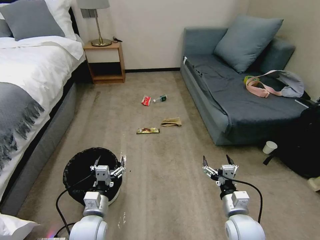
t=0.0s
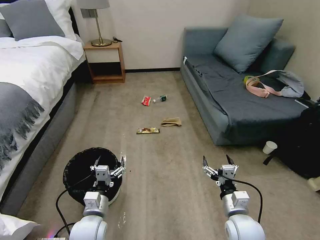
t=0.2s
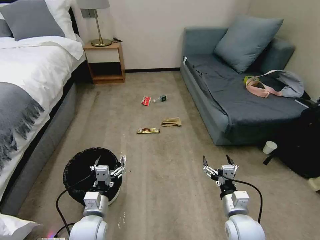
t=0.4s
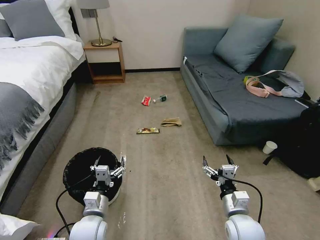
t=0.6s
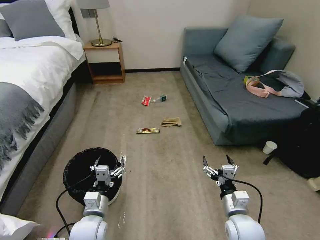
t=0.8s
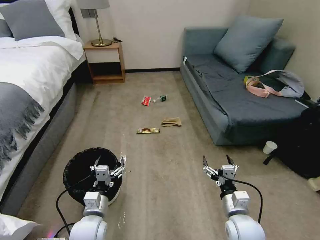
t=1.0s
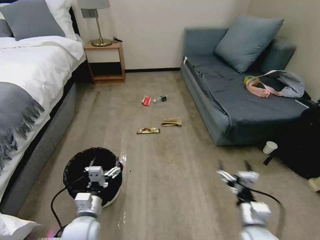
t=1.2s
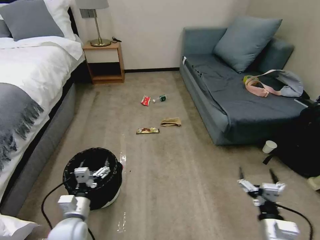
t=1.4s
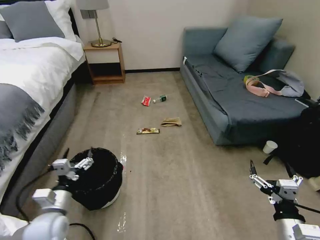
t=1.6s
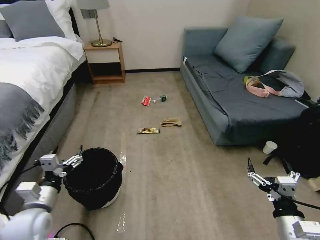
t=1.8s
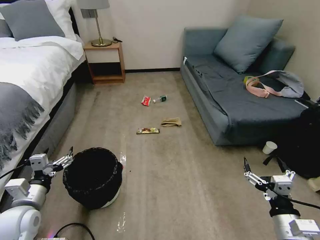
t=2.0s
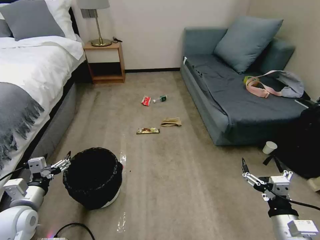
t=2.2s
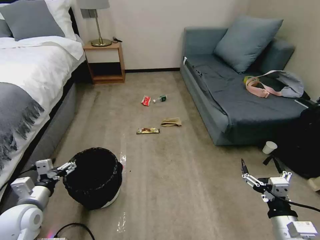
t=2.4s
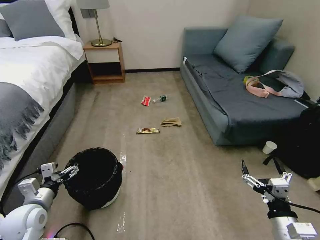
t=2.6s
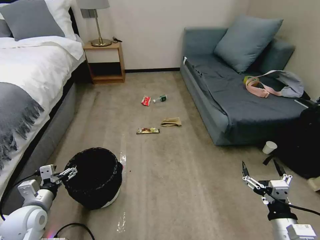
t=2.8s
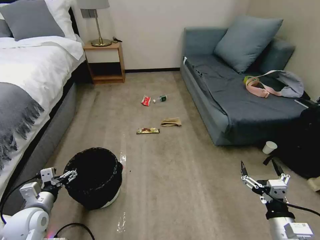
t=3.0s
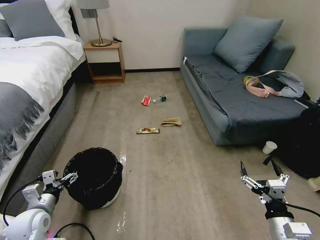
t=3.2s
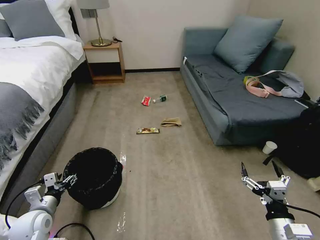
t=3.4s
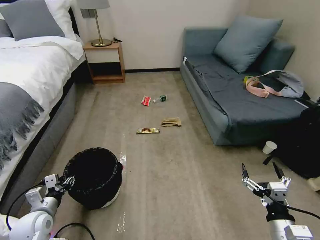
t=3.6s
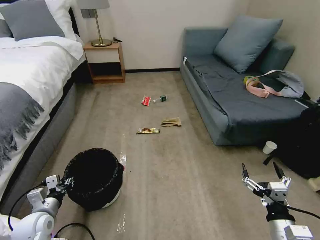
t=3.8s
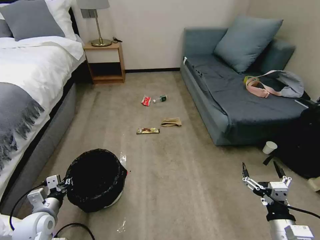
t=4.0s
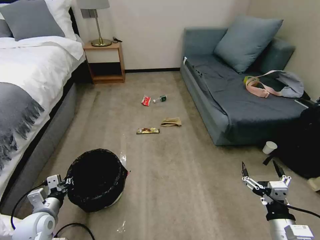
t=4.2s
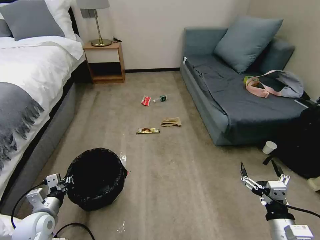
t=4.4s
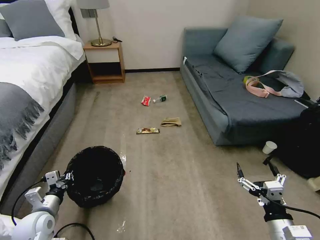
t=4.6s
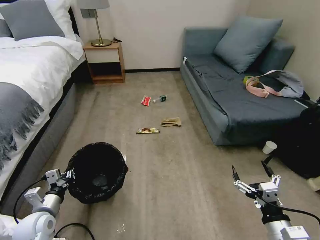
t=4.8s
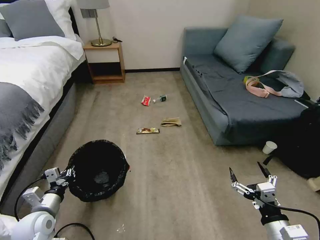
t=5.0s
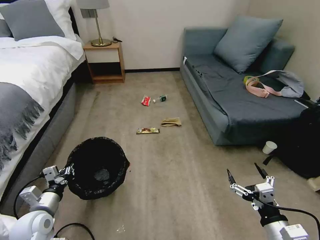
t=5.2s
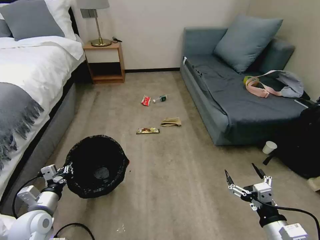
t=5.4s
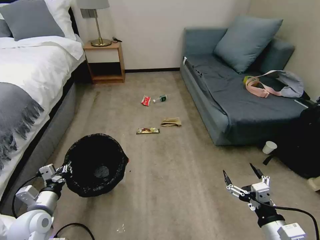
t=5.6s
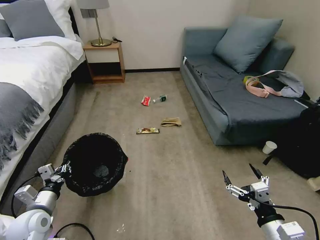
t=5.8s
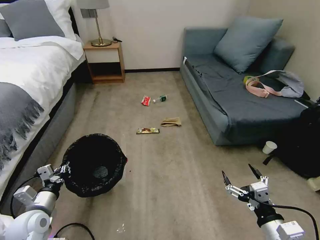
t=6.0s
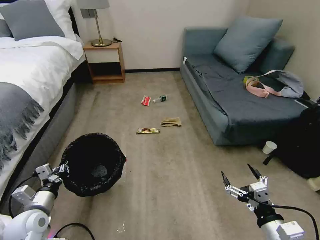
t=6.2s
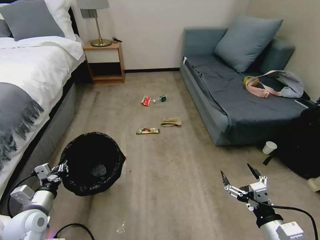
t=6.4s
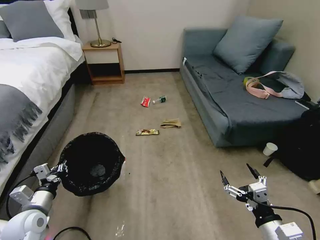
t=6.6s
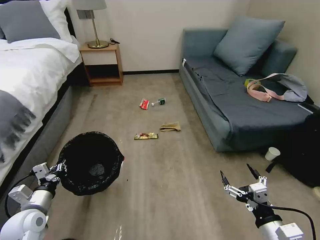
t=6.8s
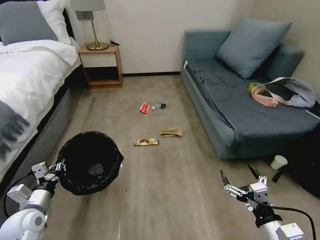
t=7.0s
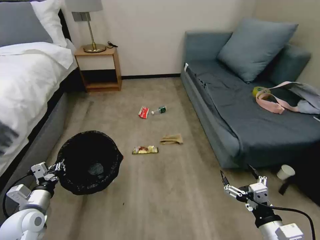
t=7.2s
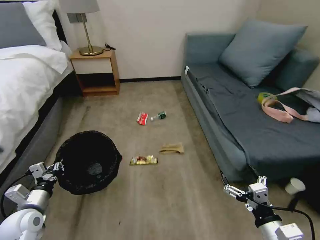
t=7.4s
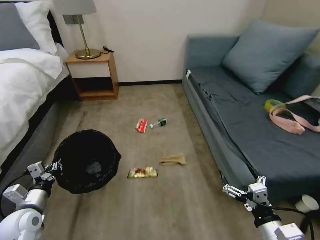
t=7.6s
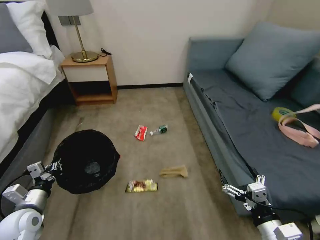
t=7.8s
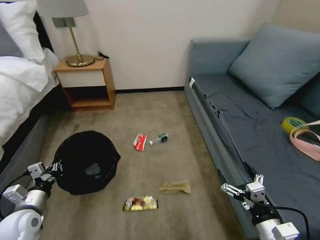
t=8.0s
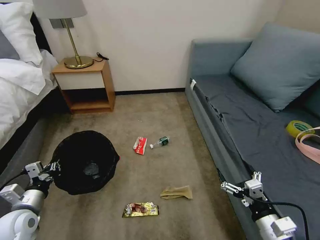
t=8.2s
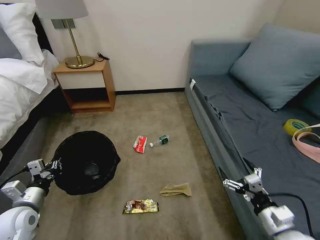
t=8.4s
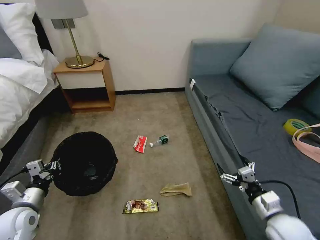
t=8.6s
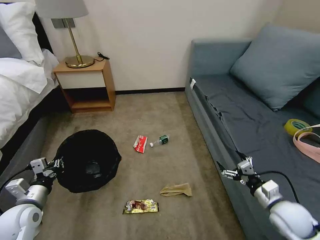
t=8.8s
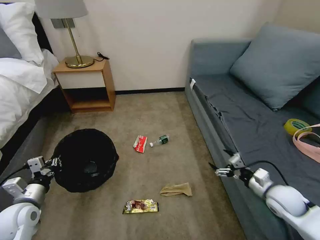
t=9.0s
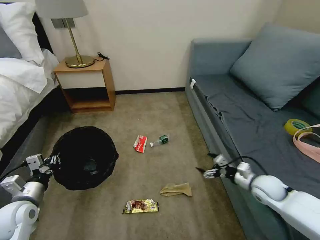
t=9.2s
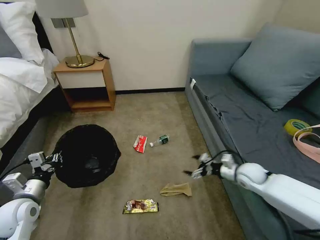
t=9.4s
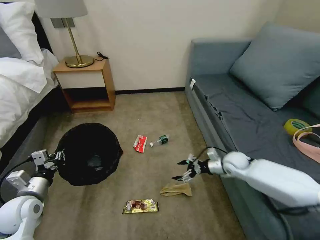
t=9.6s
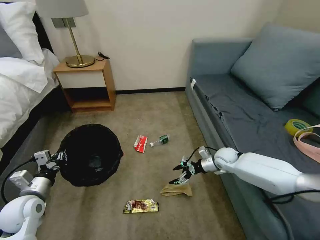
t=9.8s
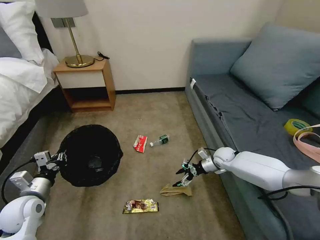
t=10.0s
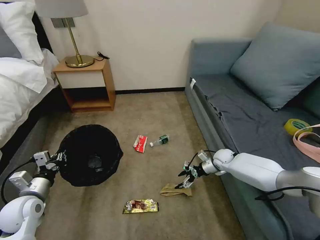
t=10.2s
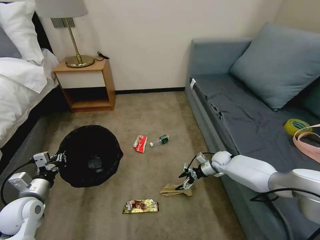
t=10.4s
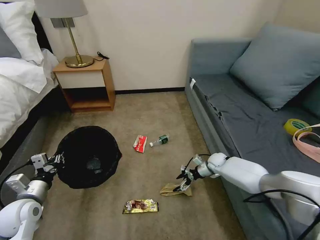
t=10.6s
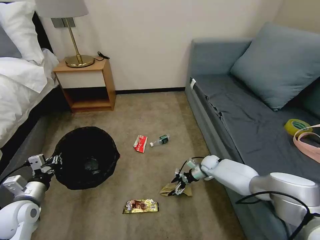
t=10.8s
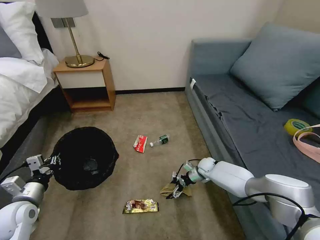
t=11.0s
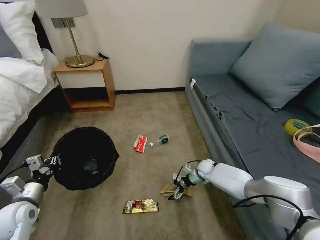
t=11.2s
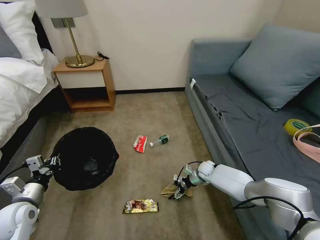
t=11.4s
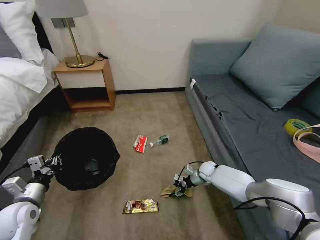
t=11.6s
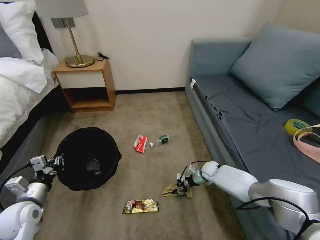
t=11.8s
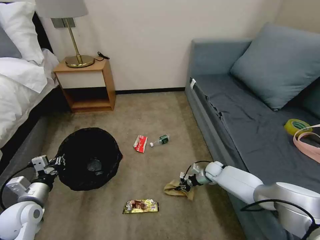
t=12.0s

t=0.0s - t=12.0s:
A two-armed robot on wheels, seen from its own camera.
Task of the whole recording: Pick up the trash bin, then pick up the garbage on the floor and place it into the trash bin.
t=1.6s - t=3.0s: The left gripper heads to the left, covering some 5 cm.
t=3.0s - t=4.4s: The left gripper closes its fingers.
t=4.4s - t=6.0s: There are only small adjustments of the grippers.
t=7.6s - t=9.0s: The right gripper is displaced forward and to the right by about 20 cm.
t=9.0s - t=10.4s: The right gripper travels forward, downward and to the left by some 25 cm.
t=10.4s - t=12.0s: The right gripper is displaced downward by approximately 5 cm, and closes.

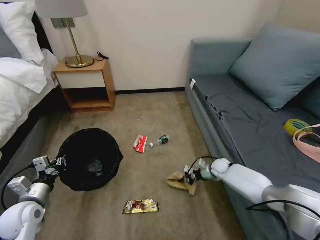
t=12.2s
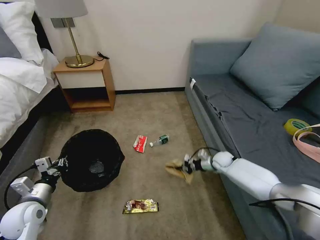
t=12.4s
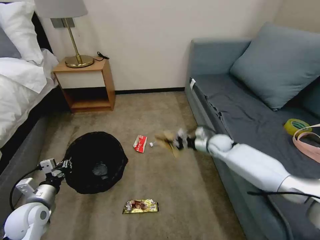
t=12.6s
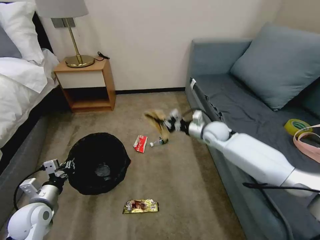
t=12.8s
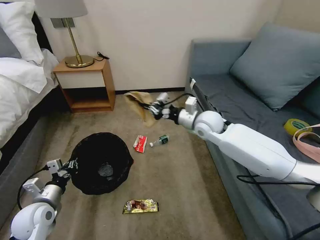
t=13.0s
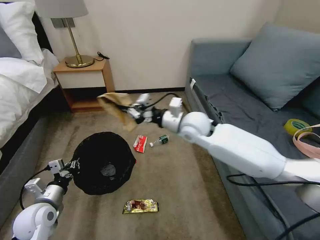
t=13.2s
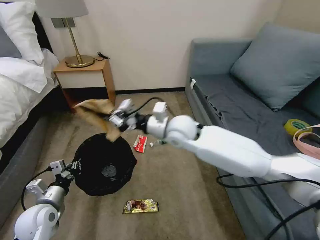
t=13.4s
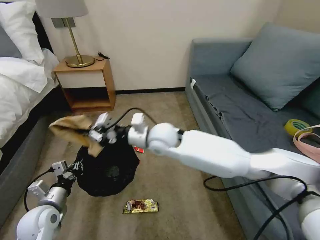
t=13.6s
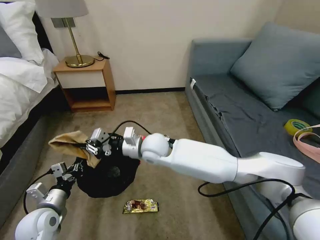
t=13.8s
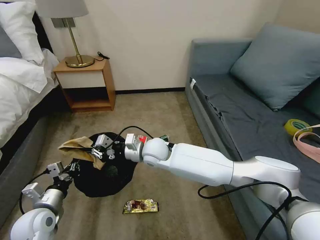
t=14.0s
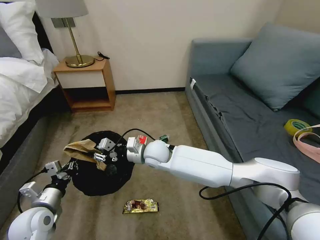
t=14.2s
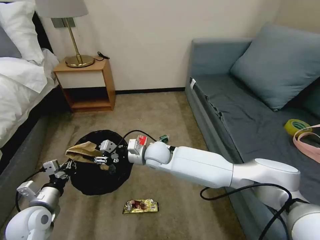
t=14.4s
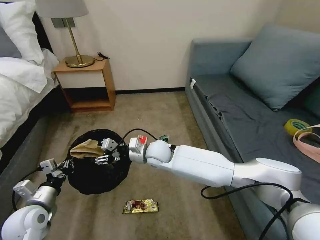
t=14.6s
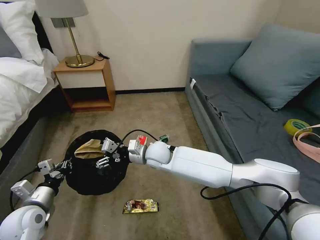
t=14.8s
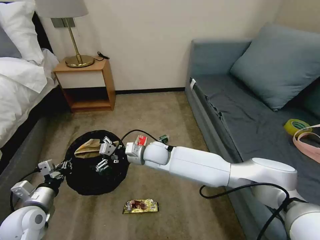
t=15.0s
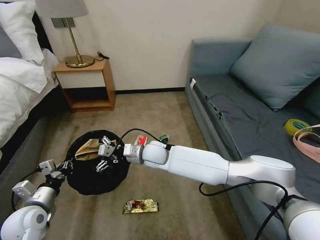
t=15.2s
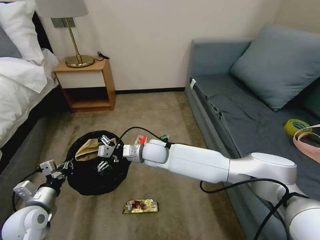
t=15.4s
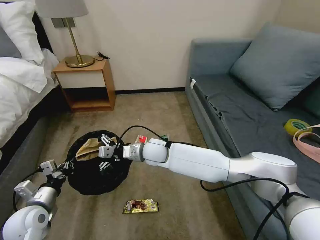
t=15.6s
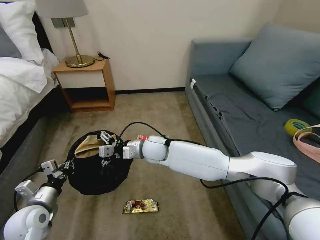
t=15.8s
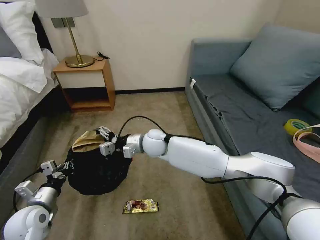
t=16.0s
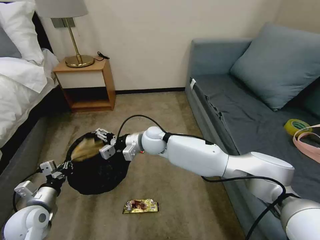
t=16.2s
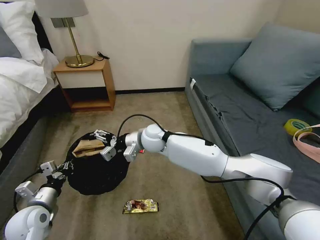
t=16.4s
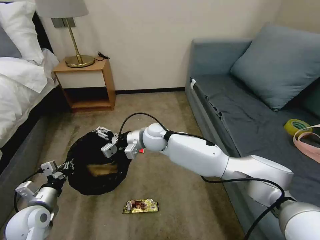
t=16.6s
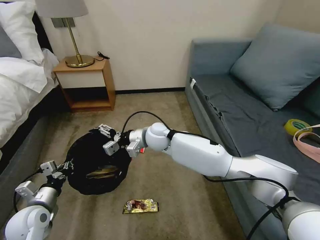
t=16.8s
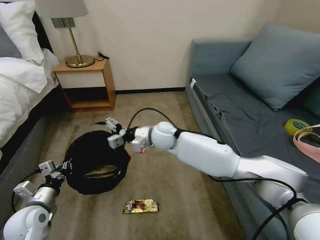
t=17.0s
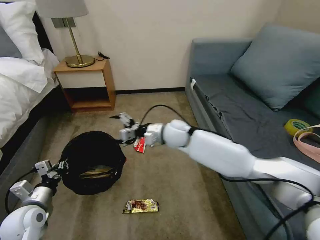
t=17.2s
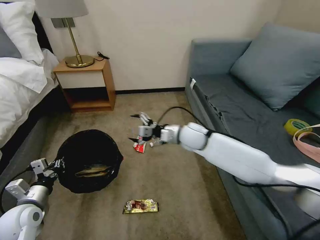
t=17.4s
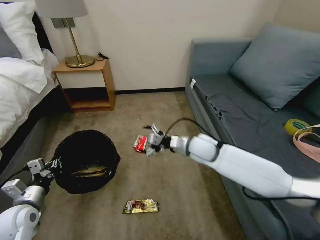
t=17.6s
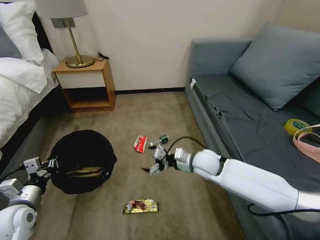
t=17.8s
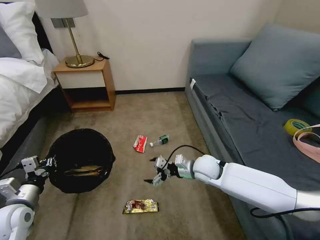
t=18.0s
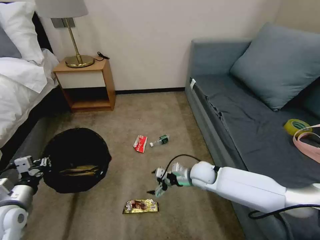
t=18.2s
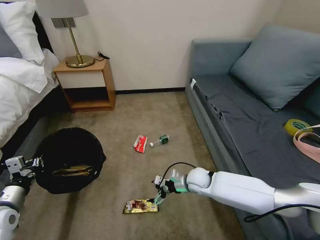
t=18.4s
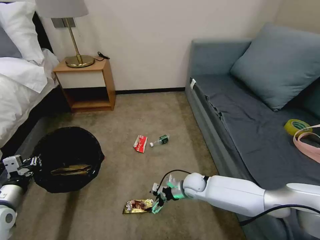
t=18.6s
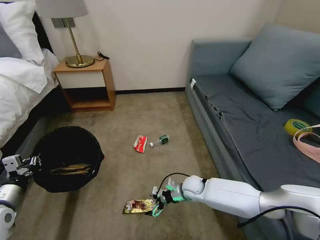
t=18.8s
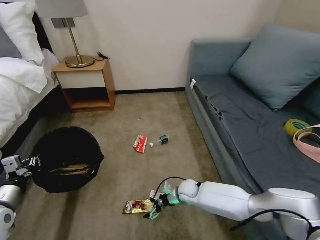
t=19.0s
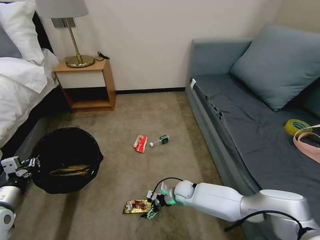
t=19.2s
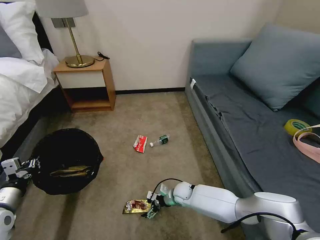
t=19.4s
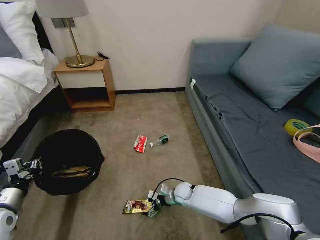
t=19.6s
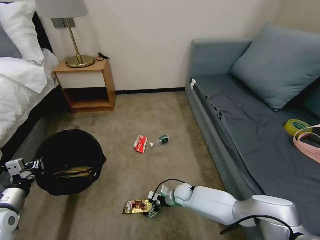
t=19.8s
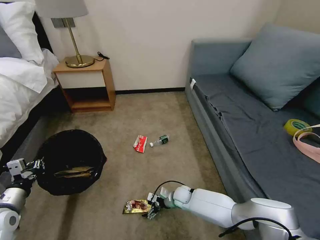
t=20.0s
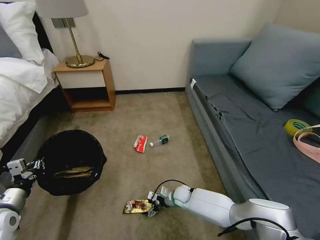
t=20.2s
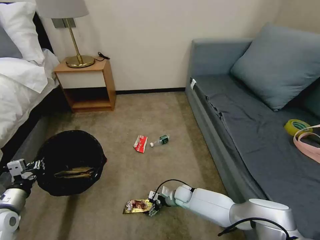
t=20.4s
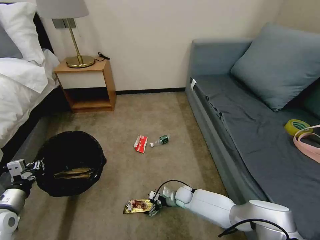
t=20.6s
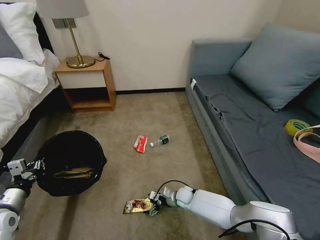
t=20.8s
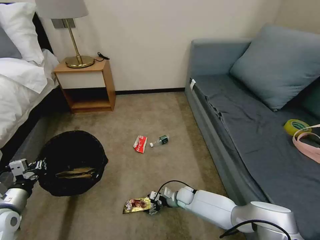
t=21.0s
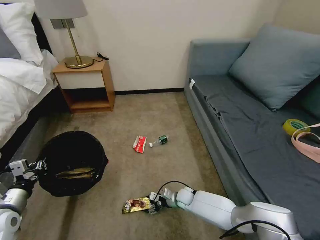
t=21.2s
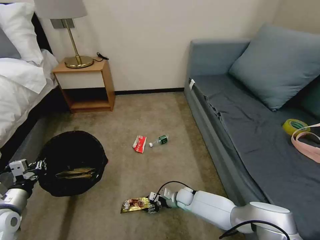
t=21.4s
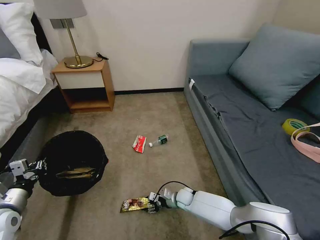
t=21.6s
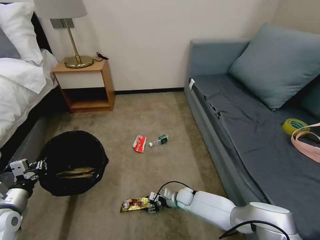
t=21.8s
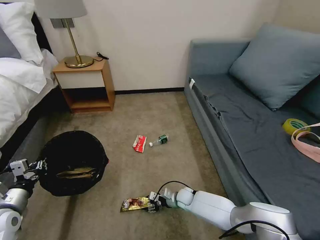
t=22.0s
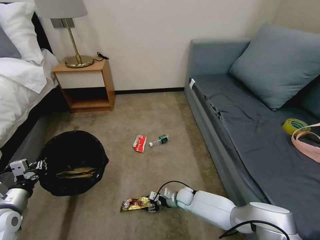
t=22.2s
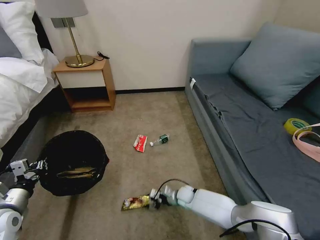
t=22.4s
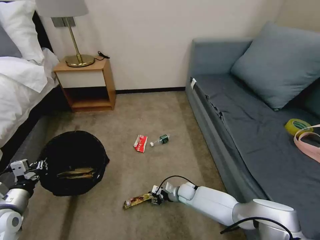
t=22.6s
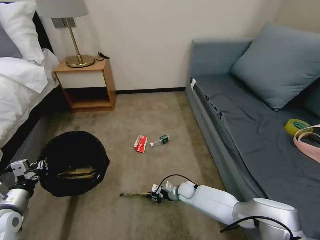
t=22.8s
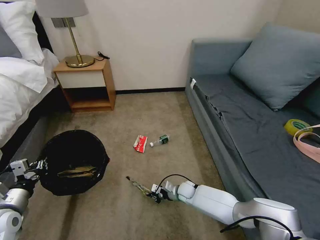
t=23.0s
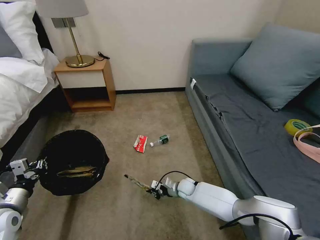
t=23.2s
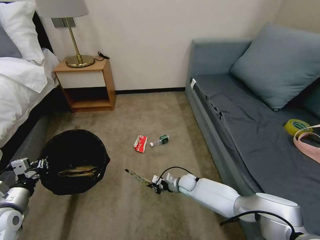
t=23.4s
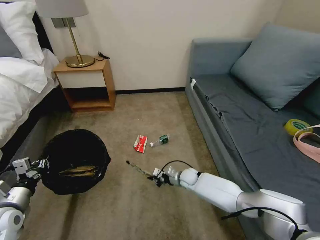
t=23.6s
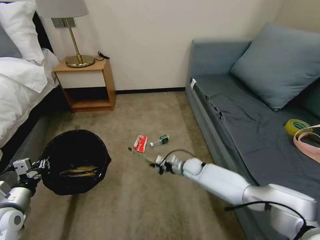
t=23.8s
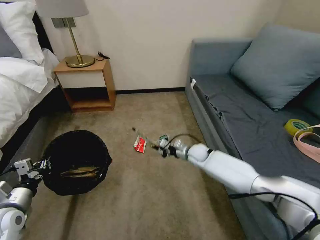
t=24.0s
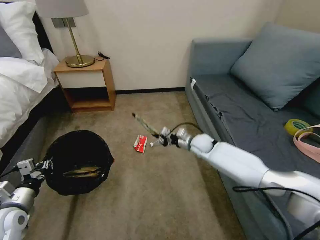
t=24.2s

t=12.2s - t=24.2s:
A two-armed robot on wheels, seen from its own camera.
Task of the whole recording: Pick up the trash bin, then pick up the garbage on the floor and place it into the trash bin.
t=12.2s - t=13.8s: The right gripper is displaced to the left and upward by some 40 cm. The left gripper shifts approximately 5 cm to the right.
t=13.8s - t=15.2s: The right gripper moves downward, some 5 cm, and opens up.
t=15.2s - t=16.6s: The right gripper moves upward, roughly 5 cm.
t=16.6s - t=18.2s: The right gripper heads to the right, downward and backward, covering roughly 25 cm, while the left gripper ends up approximately 5 cm from where it was.
t=18.2s - t=19.8s: The right gripper goes roughly 15 cm downward.
t=19.8s - t=22.6s: There are only small adjustments of the grippers.
t=22.6s - t=24.2s: The right gripper shifts roughly 25 cm upward and forward, and closes its fingers.
